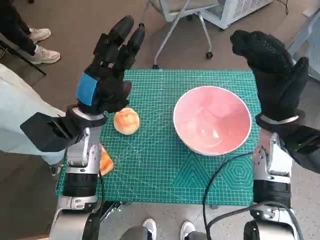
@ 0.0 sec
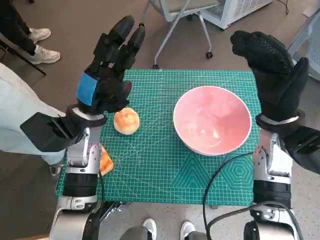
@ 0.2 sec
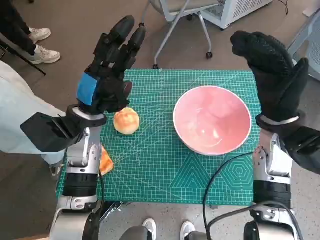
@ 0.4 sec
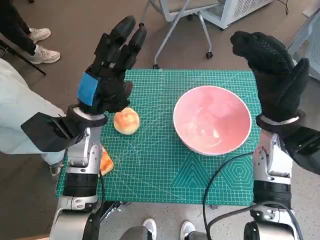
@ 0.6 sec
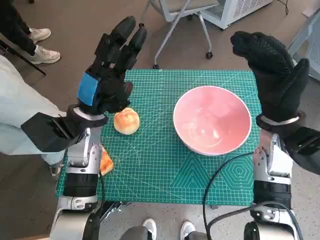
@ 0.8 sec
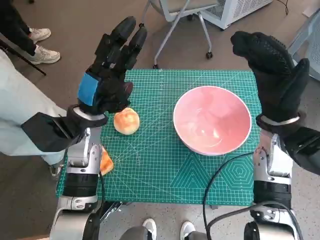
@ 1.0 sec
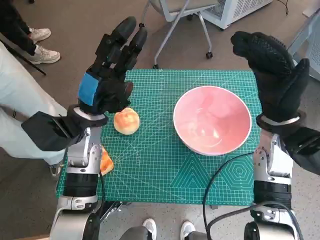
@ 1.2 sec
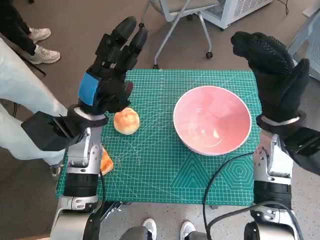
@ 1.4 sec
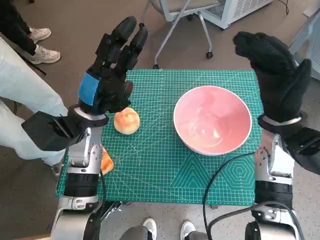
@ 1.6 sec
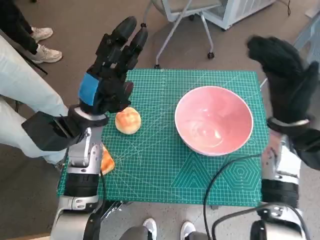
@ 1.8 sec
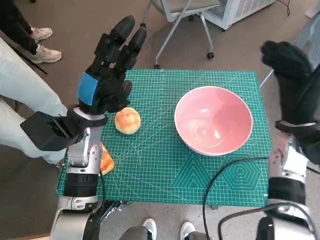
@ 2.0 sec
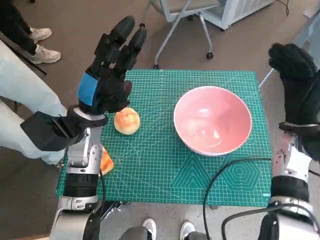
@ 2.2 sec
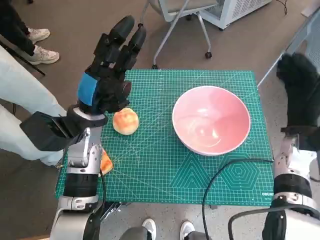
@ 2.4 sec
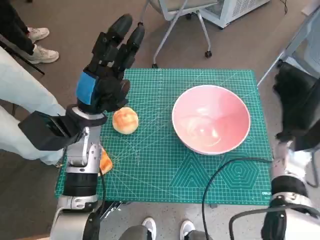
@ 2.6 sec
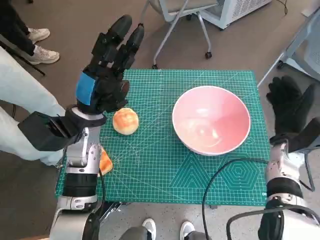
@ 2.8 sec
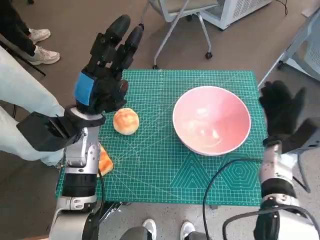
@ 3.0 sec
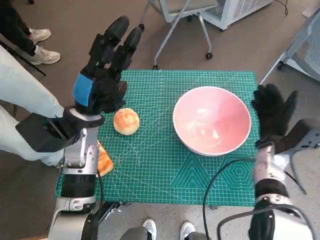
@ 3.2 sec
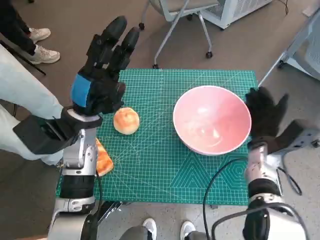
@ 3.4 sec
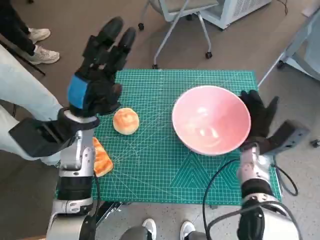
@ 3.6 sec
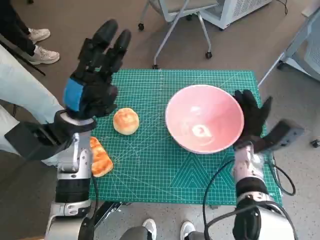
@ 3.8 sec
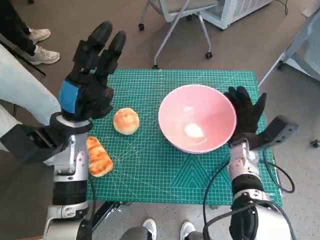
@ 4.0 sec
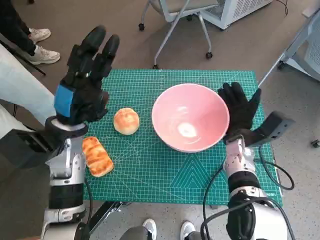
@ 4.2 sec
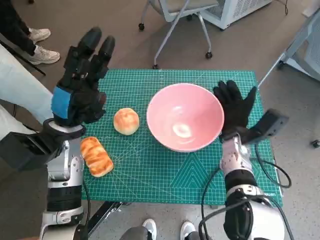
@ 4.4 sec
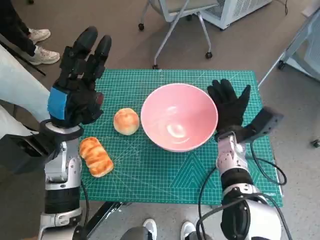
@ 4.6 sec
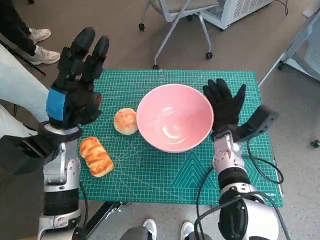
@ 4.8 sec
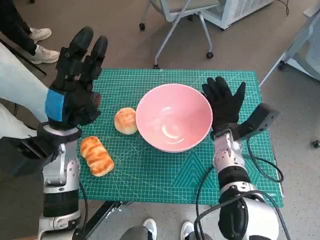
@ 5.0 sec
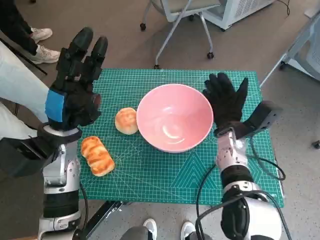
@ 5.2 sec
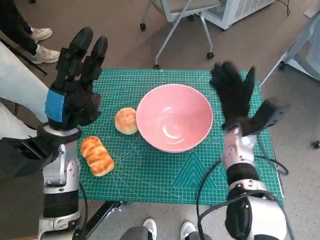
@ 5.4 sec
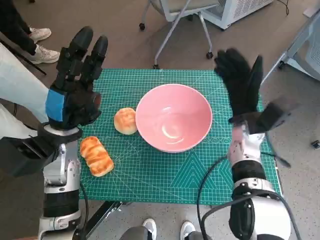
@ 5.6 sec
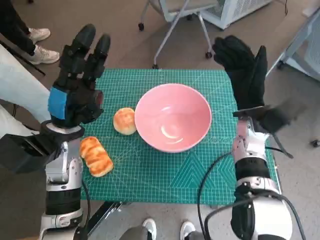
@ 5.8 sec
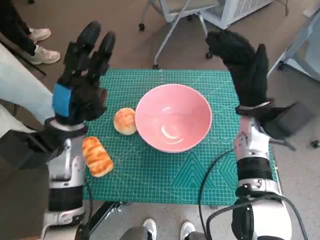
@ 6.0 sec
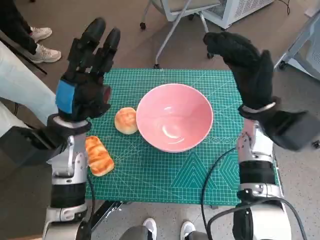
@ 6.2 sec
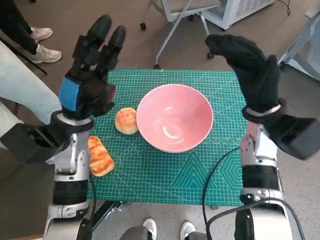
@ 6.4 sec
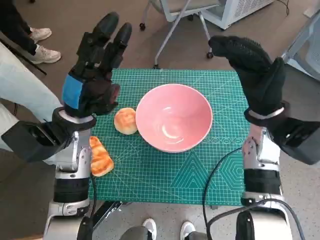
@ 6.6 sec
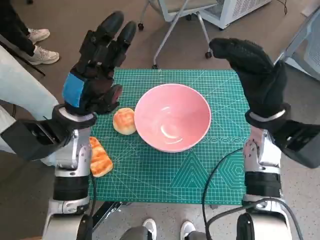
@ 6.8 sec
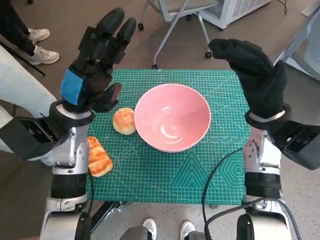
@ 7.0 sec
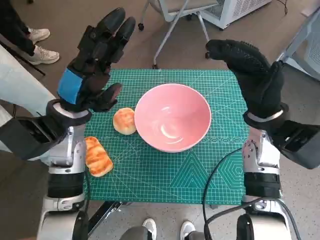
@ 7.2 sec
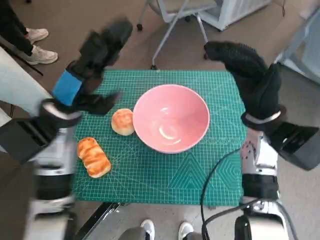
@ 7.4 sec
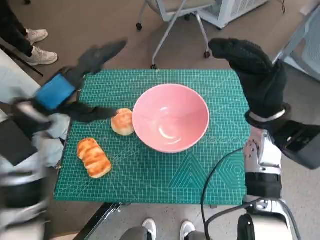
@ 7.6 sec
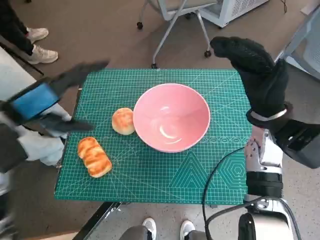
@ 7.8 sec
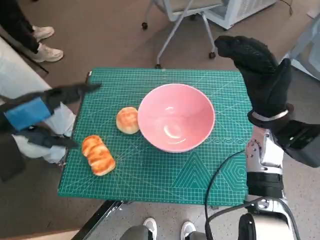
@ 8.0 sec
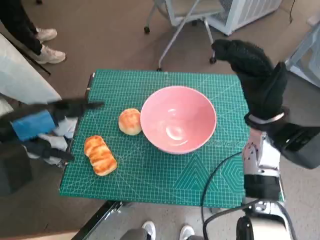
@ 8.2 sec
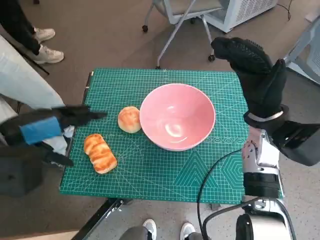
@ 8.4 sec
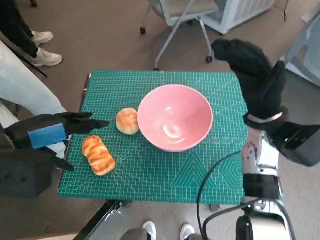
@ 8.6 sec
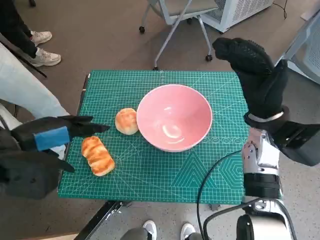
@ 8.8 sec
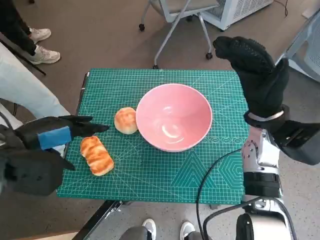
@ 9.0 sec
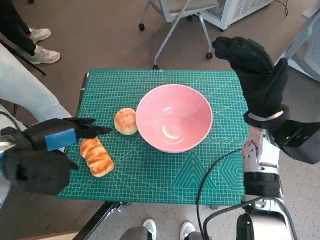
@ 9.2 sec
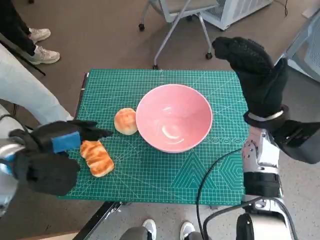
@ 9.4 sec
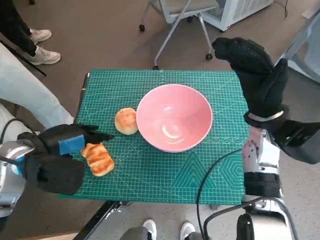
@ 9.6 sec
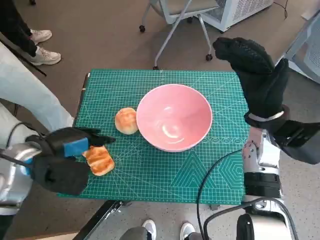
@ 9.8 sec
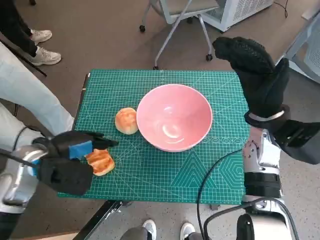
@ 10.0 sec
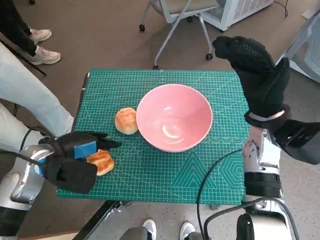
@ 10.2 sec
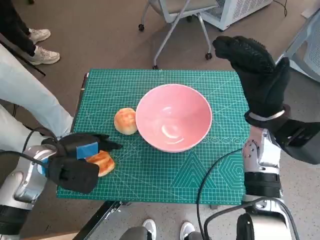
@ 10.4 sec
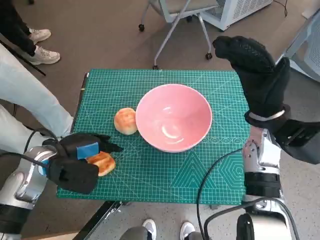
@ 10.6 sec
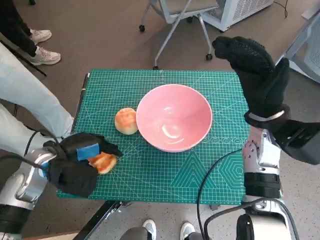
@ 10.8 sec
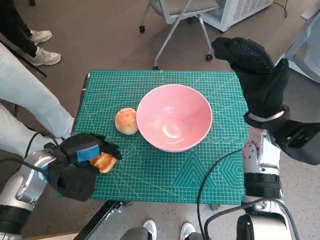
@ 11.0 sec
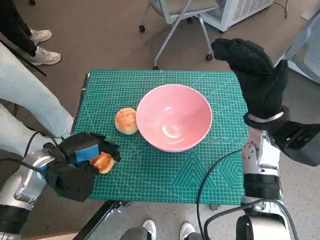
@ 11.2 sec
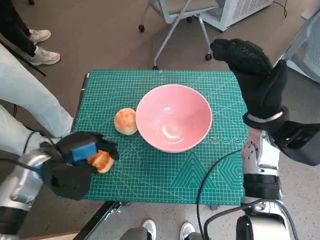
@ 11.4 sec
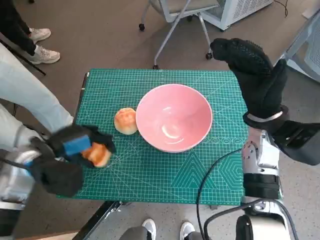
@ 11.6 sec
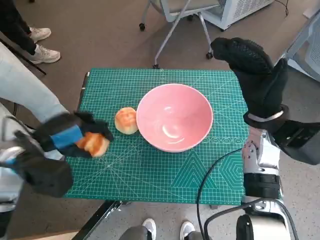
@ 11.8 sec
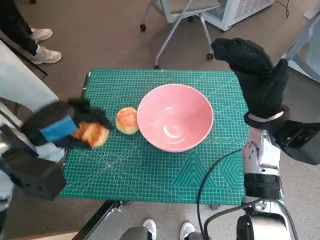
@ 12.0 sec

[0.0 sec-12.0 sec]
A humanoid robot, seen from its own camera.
Task of the whole recording: Push the bowl into the center of the table and put the bread into the bowl.
Step, 0.0 sec to 5.6 sec: Move the pink bowl to the center of table with right hand.
Step, 5.8 sec to 11.2 sec: Grasp the long bread with left hand.
1.6 sec to 3.0 sec: The right hand shifts approximately 10 cm downward.
3.0 sec to 4.4 sec: The right hand travels to the left by about 10 cm.
4.4 sec to 6.0 sec: The right hand travels upward by roughly 10 cm.
6.0 sec to 7.6 sec: The left hand moves upward, approximately 5 cm.
7.6 sec to 9.0 sec: The left hand goes roughly 5 cm backward.
9.0 sec to 10.4 sec: The left hand shifts roughly 10 cm downward.
10.4 sec to 12.0 sec: The left hand shifts roughly 10 cm upward.

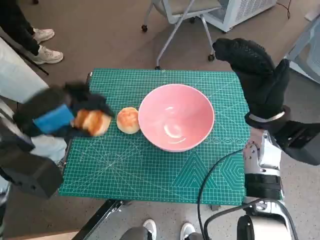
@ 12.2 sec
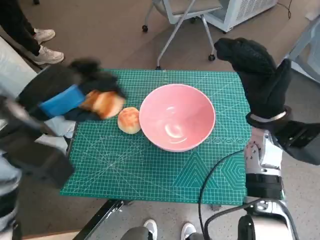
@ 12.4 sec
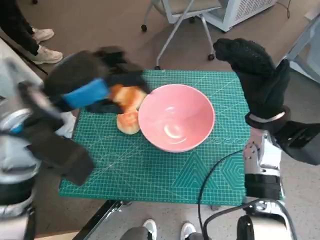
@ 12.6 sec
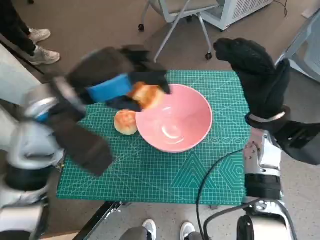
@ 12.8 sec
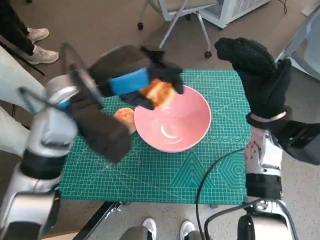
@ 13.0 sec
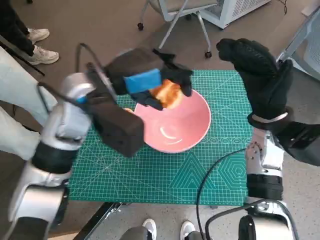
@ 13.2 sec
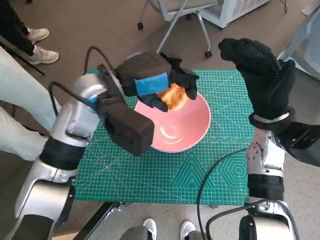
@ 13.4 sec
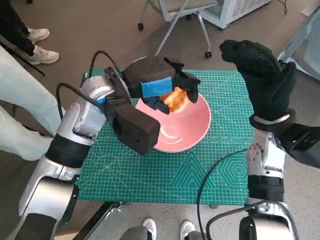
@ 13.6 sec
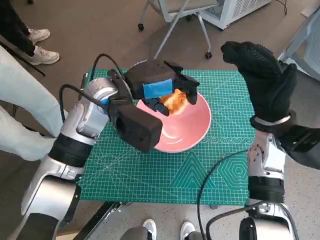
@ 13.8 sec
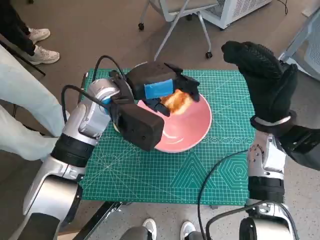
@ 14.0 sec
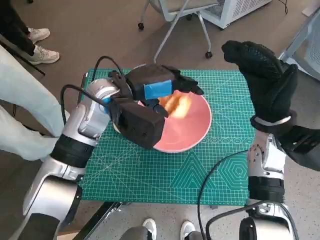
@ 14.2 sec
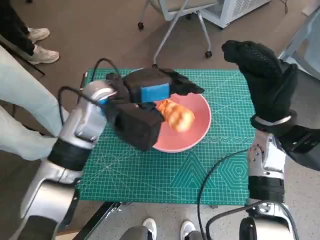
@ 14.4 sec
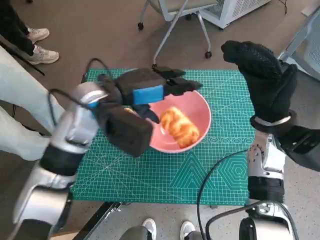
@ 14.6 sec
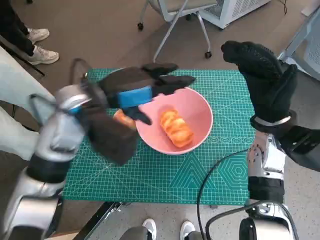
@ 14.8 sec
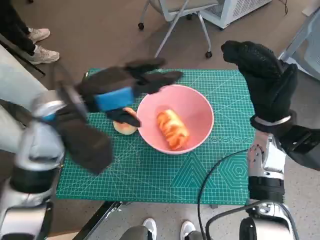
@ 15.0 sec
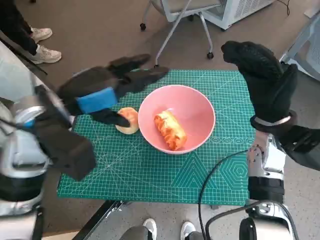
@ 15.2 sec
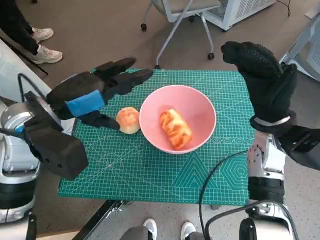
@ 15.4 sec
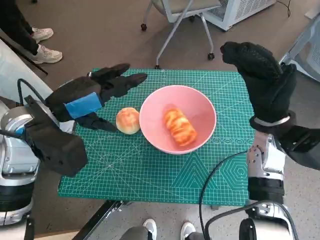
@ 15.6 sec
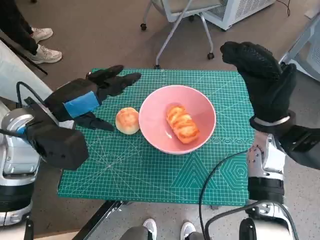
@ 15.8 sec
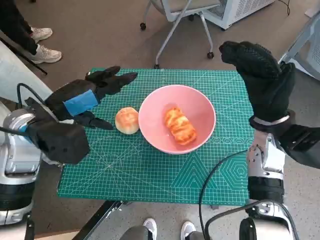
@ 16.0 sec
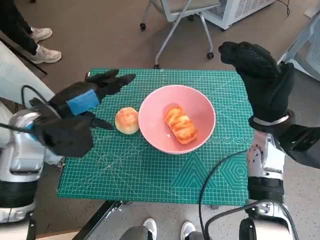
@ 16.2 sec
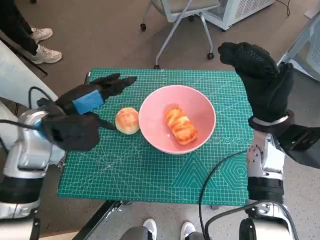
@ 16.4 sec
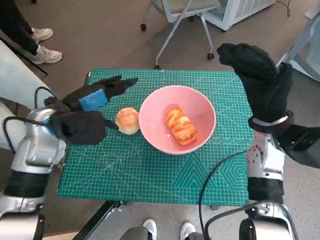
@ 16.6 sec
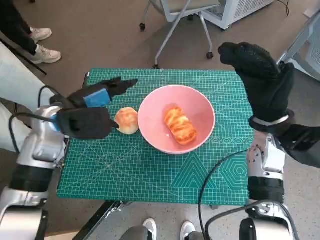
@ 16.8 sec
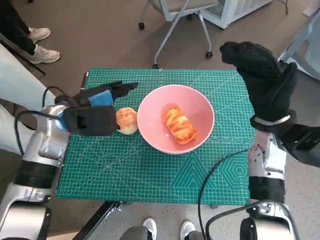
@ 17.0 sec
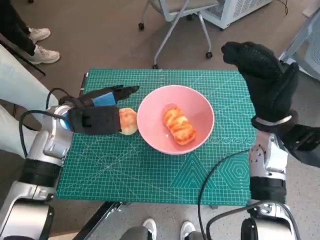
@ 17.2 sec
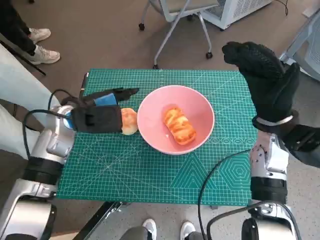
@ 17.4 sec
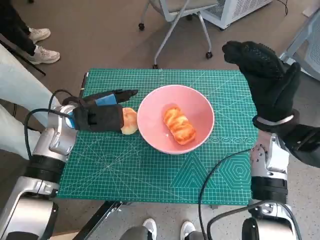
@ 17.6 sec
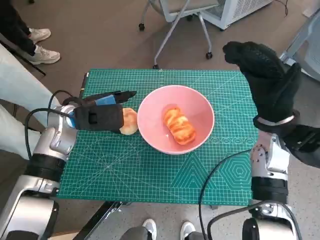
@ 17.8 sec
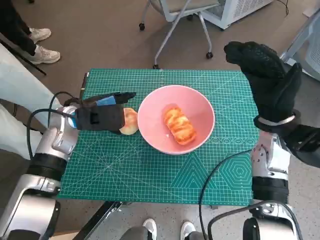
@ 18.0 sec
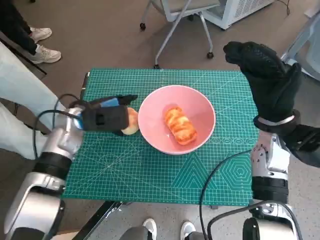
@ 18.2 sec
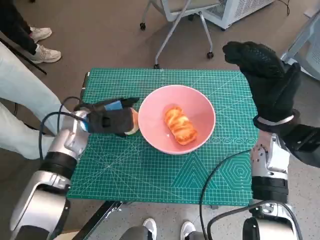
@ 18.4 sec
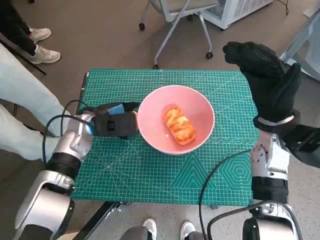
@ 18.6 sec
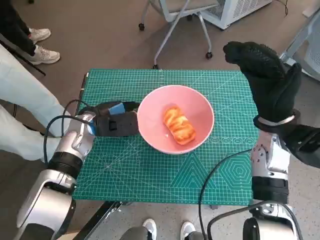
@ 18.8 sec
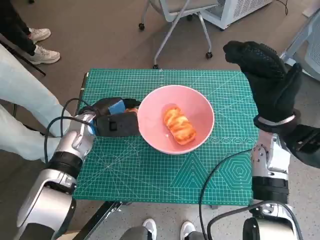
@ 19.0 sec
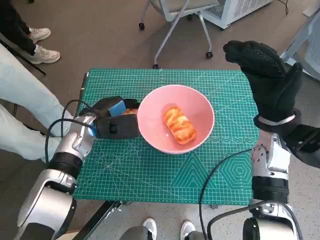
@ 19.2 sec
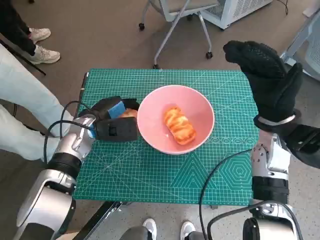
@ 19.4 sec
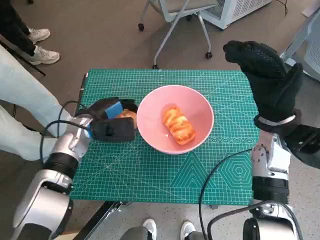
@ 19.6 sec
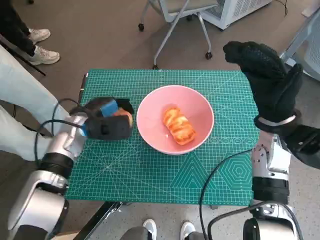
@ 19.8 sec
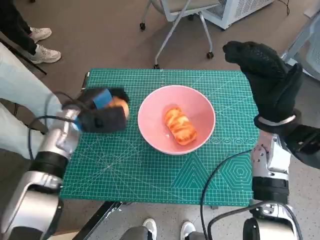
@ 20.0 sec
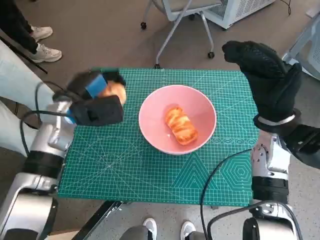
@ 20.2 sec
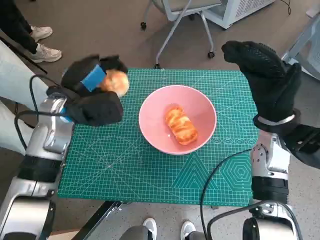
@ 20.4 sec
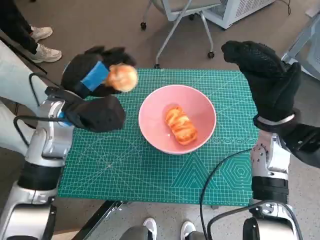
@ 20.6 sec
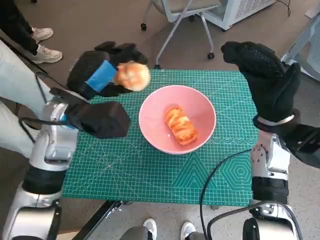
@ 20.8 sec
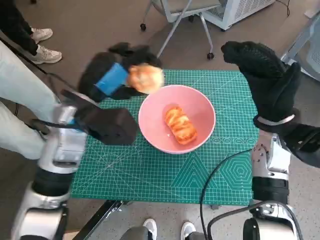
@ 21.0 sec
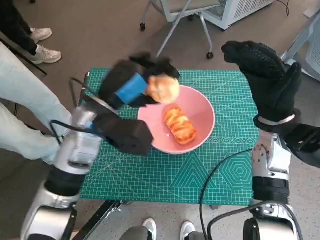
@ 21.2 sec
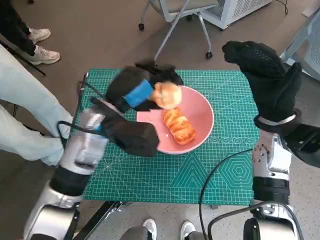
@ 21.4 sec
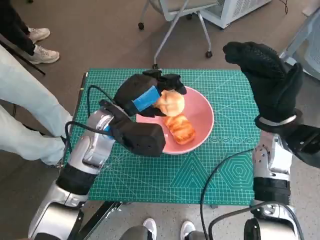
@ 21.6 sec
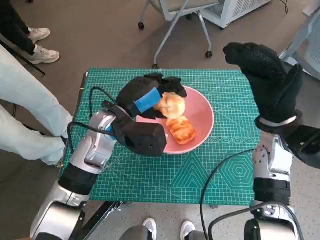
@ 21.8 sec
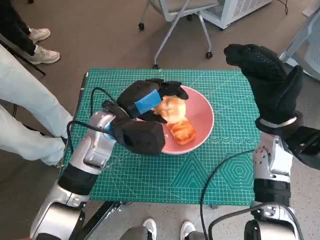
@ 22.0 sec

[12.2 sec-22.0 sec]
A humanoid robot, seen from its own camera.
Task of the whole recording: Push the bowl into the center of the table and put the bread into the bowl.
Step, 12.2 sec to 14.8 sec: Place the long bread in pink bowl with left hand.
Step, 15.2 sec to 19.2 sec: Grasp the round bread with left hand.
12.2 sec to 13.6 sec: The left hand travels to the right and forward by about 15 cm.
13.6 sec to 15.0 sec: The left hand goes about 5 cm to the left.
15.0 sec to 16.4 sec: The left hand is displaced to the left and downward by about 5 cm.
16.4 sec to 17.8 sec: The left hand moves about 5 cm.
17.8 sec to 19.2 sec: The left hand is displaced downward by approximately 5 cm.
19.2 sec to 20.6 sec: The left hand heads upward, covering some 10 cm.
20.6 sec to 22.0 sec: The left hand moves to the right, approximately 5 cm.
